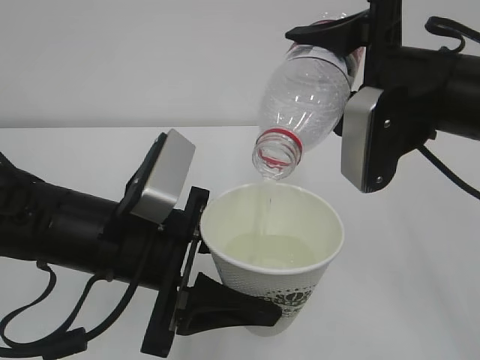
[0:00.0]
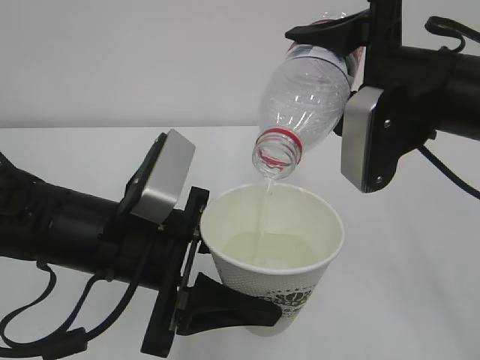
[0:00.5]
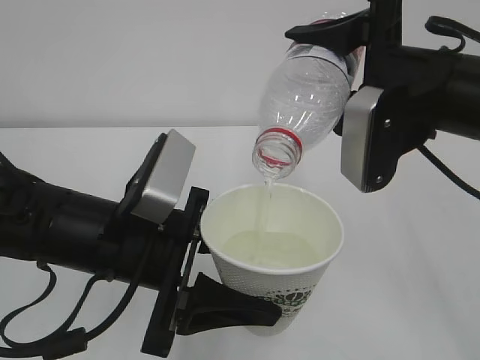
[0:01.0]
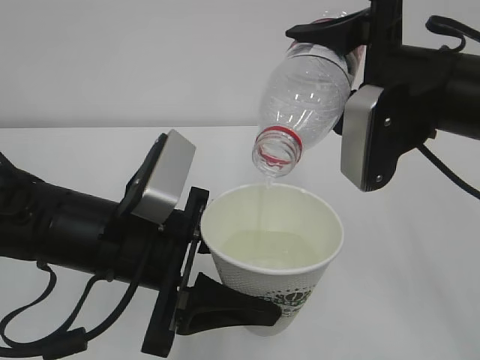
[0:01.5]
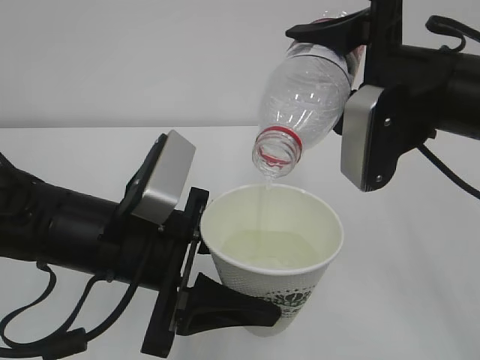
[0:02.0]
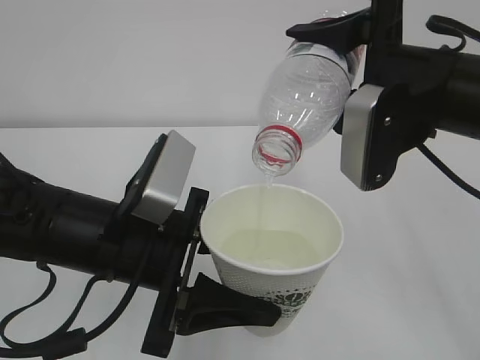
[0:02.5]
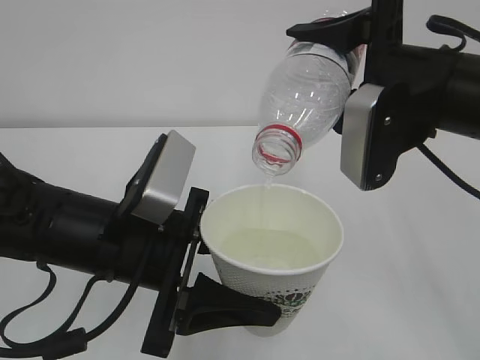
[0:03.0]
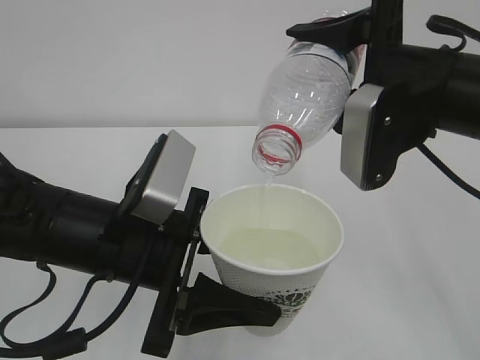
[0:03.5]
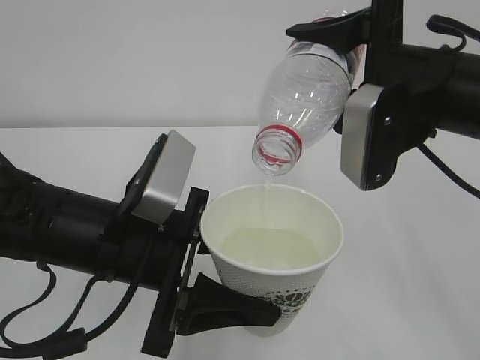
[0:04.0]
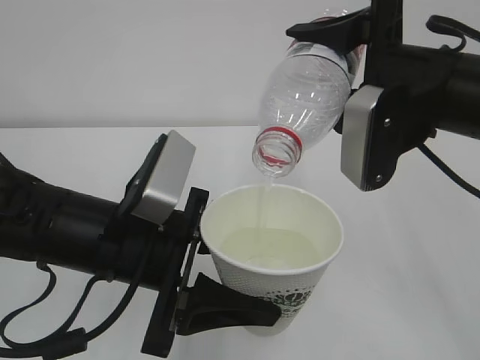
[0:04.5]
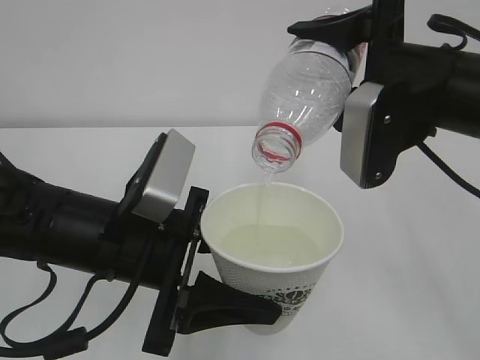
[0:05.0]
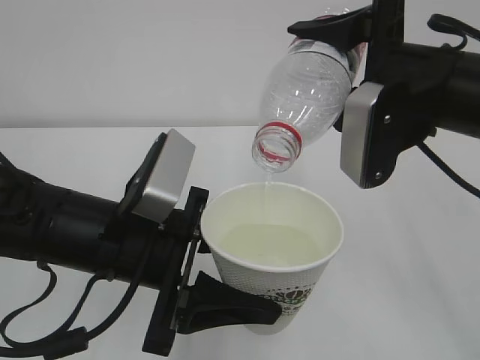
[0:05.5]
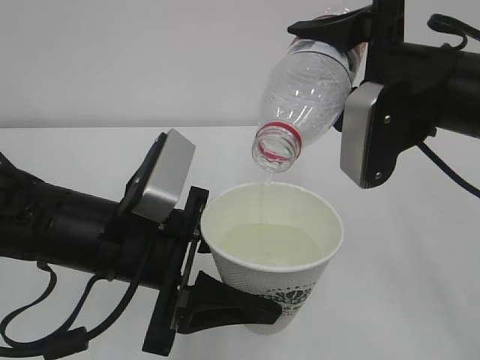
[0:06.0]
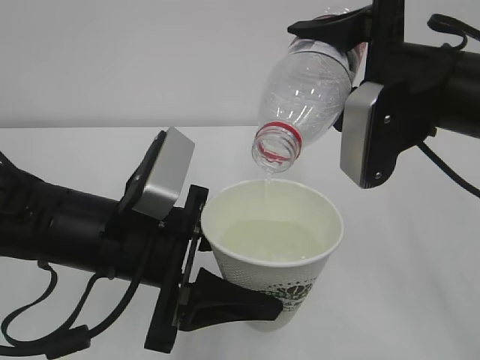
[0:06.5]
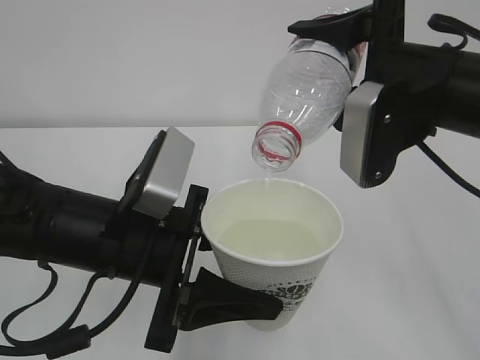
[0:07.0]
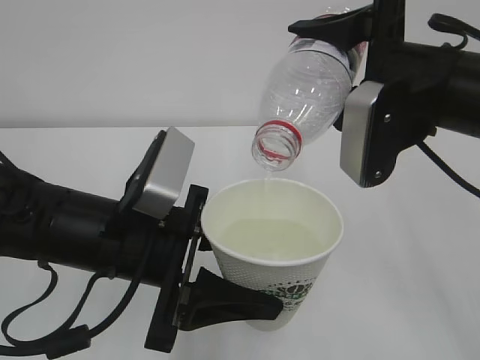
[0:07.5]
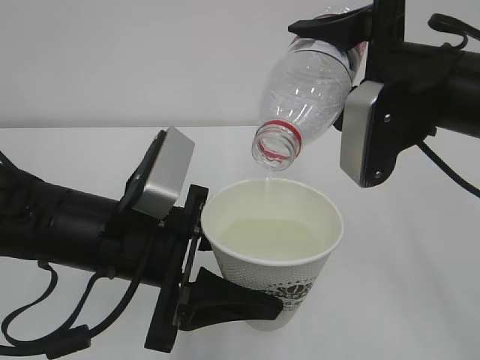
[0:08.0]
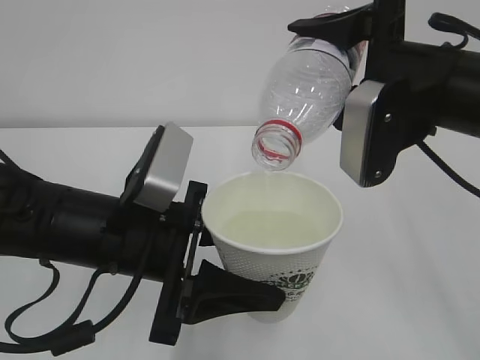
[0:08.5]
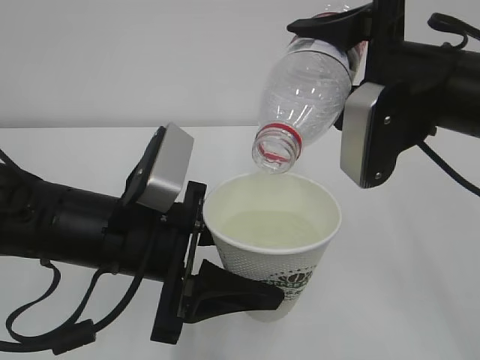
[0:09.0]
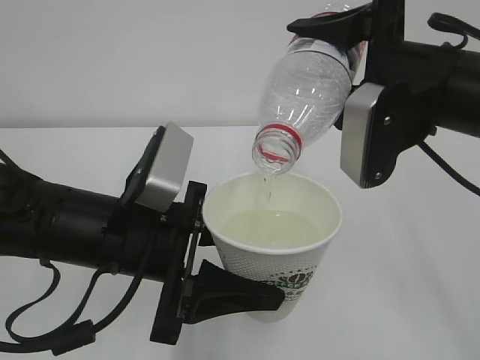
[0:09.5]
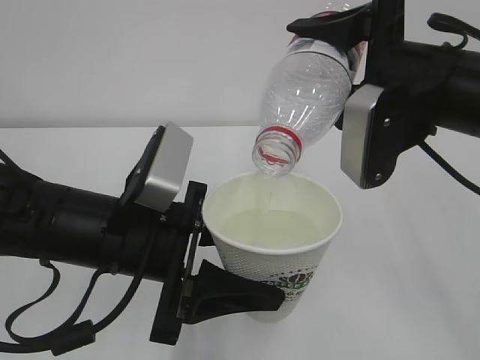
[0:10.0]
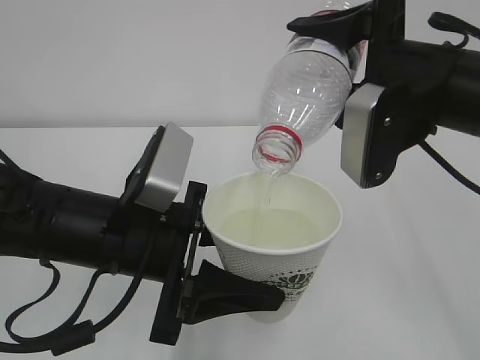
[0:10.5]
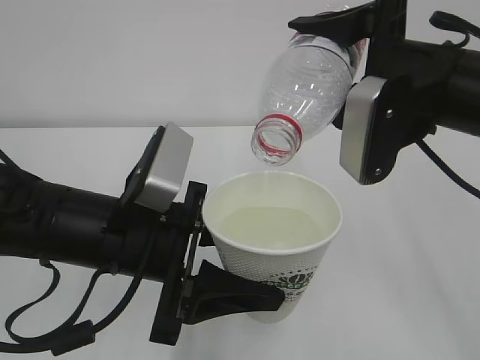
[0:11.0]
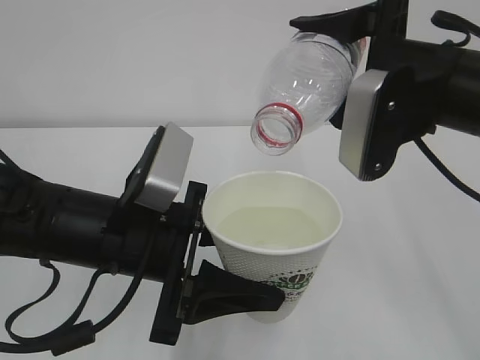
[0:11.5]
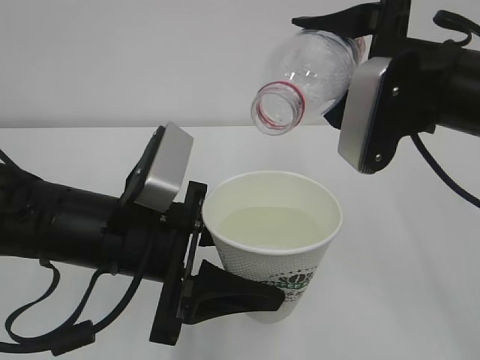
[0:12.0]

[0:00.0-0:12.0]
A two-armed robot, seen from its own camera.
0:00.0 to 0:10.0: Both grippers stay put.
0:10.0 to 0:12.0: The grippers make only small movements.

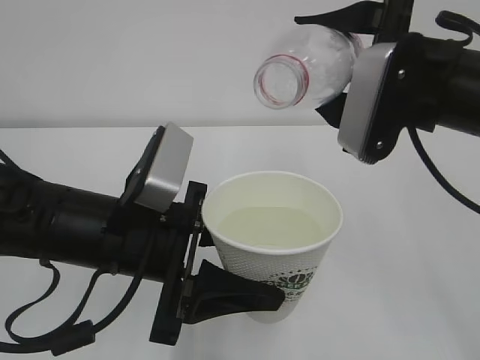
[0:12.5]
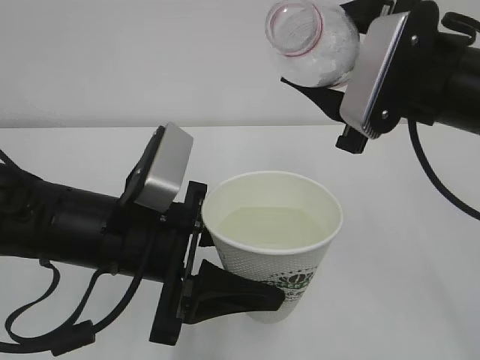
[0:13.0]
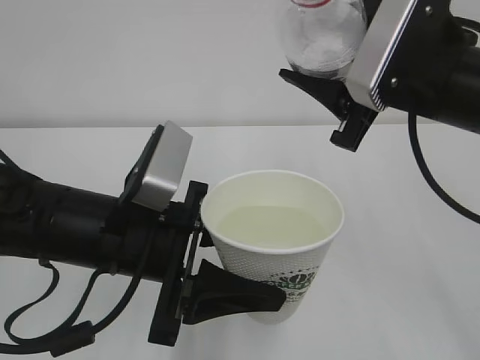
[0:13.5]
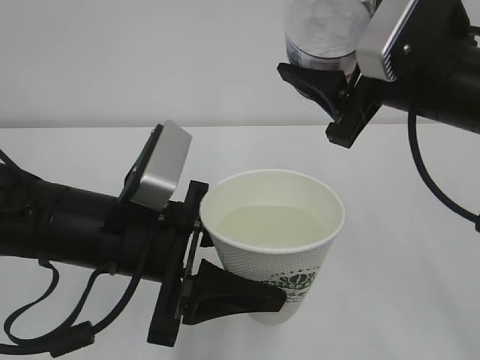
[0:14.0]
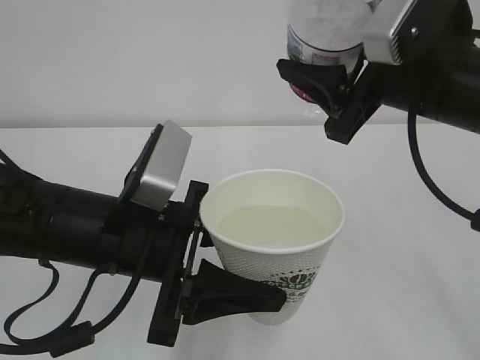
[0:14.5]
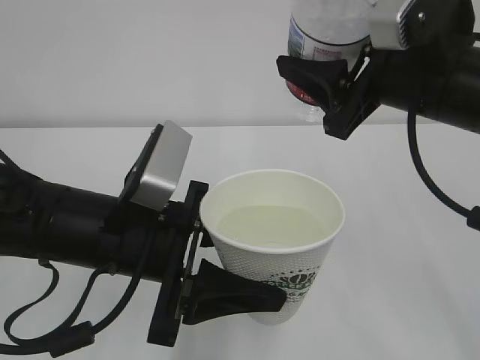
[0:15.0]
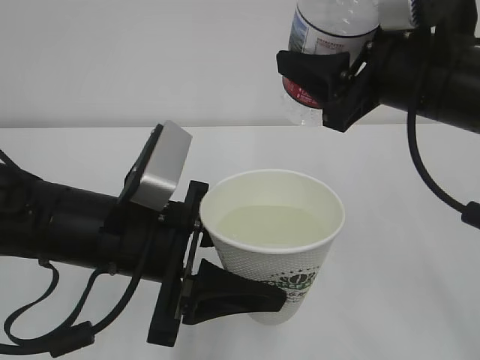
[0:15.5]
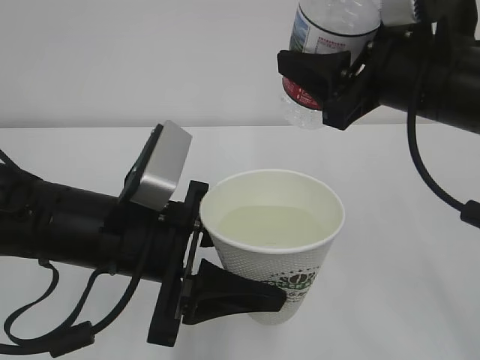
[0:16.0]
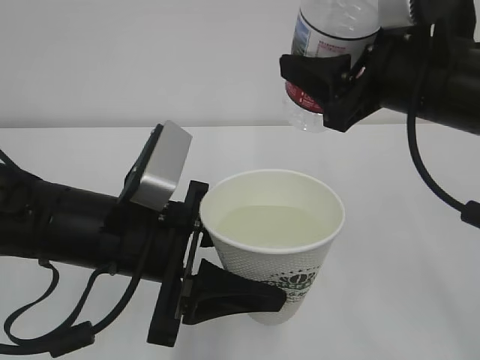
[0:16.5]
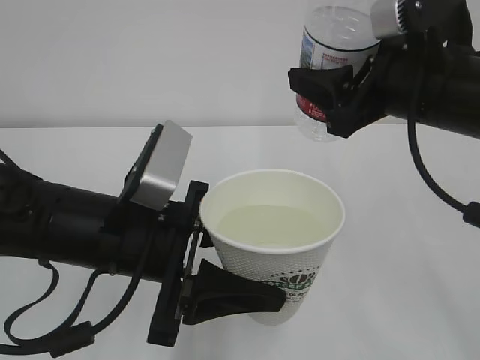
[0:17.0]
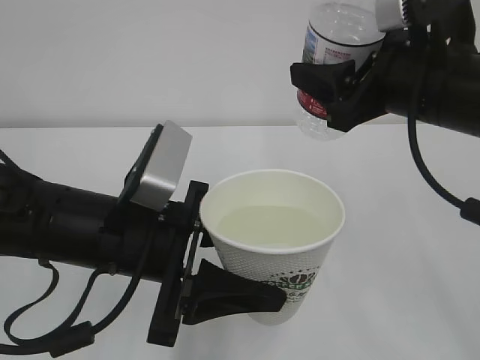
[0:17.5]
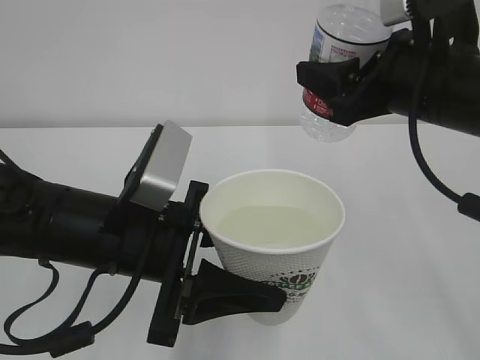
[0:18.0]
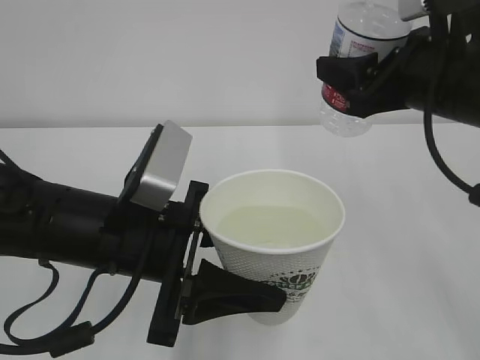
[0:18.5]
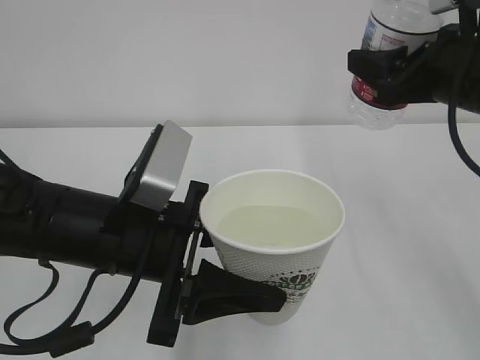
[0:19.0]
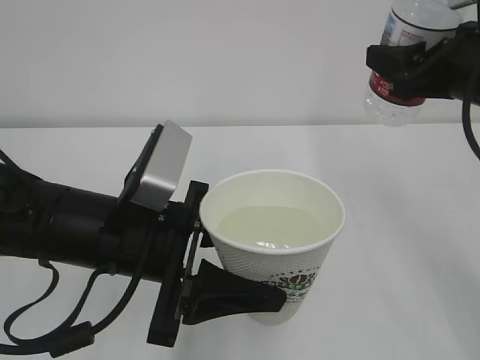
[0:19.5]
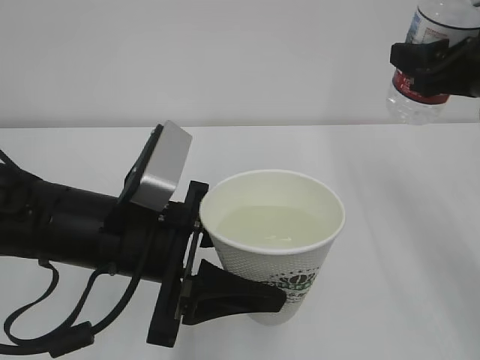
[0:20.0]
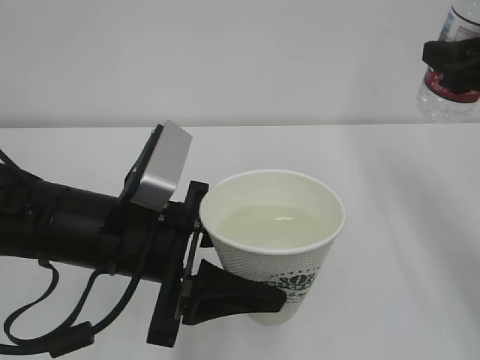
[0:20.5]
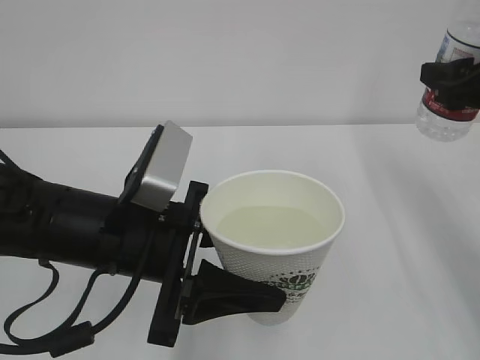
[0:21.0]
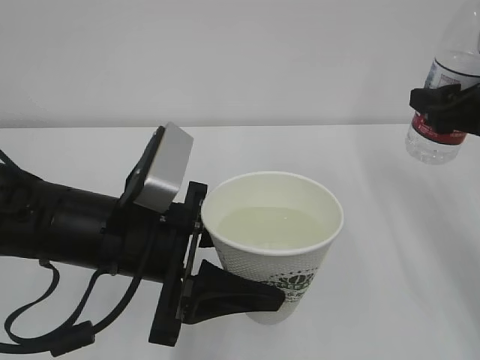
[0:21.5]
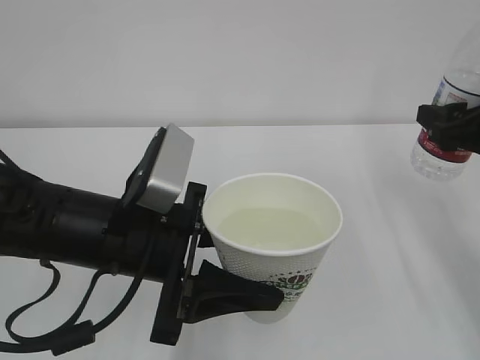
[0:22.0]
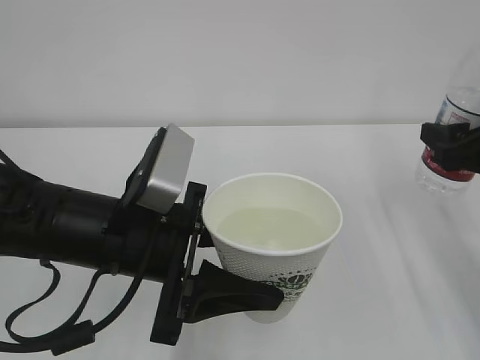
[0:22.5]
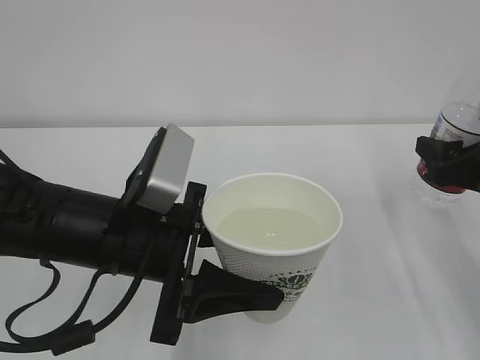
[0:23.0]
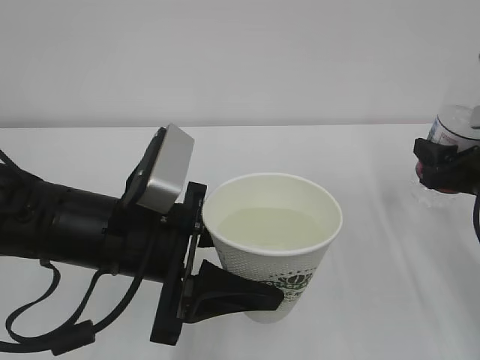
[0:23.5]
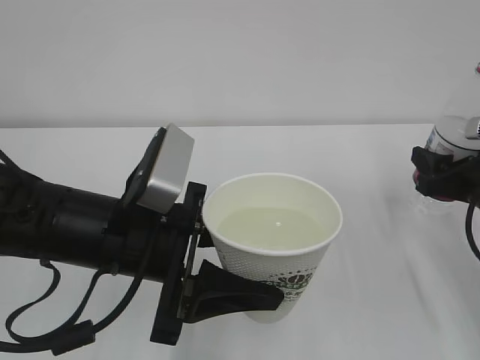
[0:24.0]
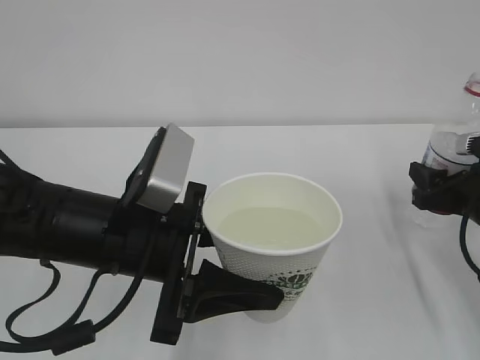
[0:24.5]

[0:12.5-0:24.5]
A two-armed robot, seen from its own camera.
0:14.5 to 0:16.5: The grippers make only small movements.
0:16.5 to 0:18.5: The grippers move only a little.
0:18.5 to 0:20.5: The right gripper moves to the right, some 10 cm.
0:20.5 to 0:22.5: The right gripper goes roughly 10 cm downward.
0:22.5 to 0:24.5: The right gripper heads downward, covering about 10 cm.

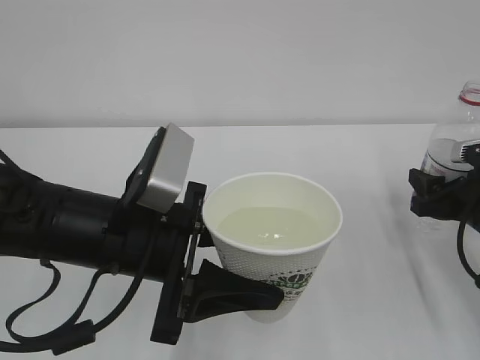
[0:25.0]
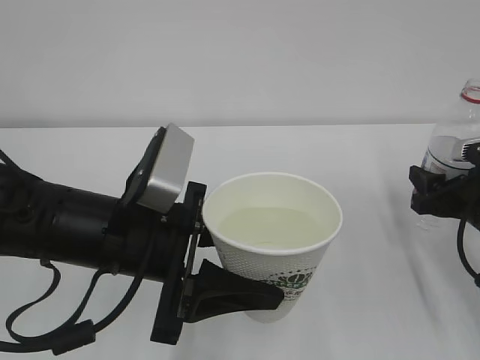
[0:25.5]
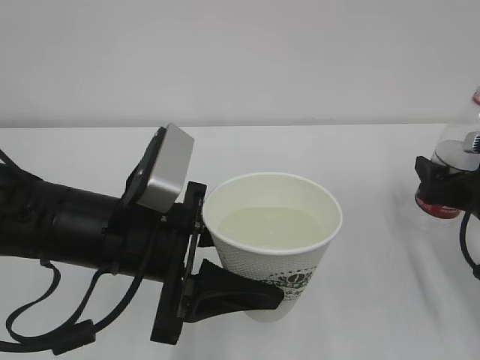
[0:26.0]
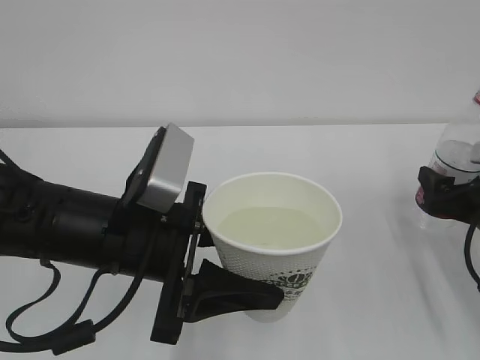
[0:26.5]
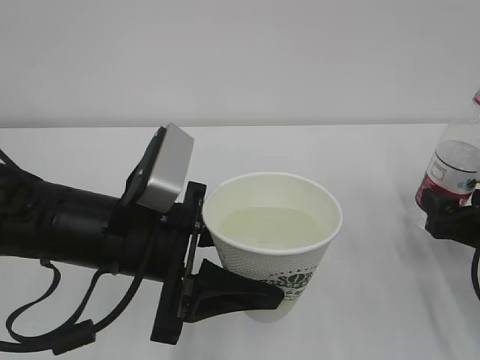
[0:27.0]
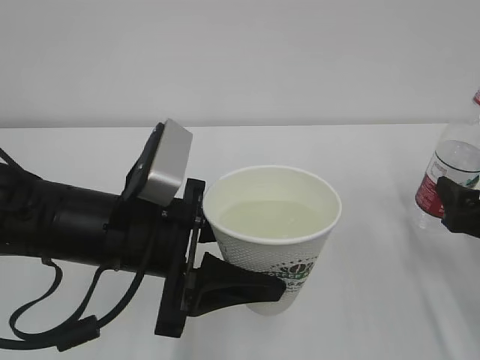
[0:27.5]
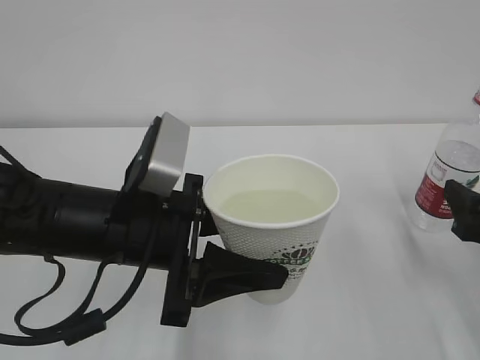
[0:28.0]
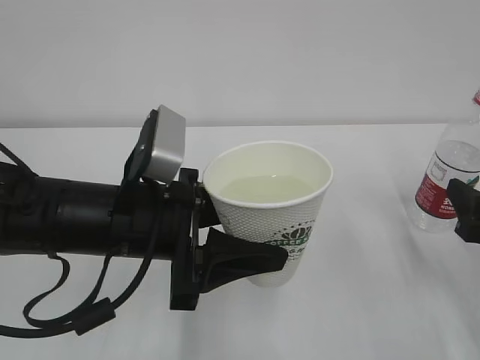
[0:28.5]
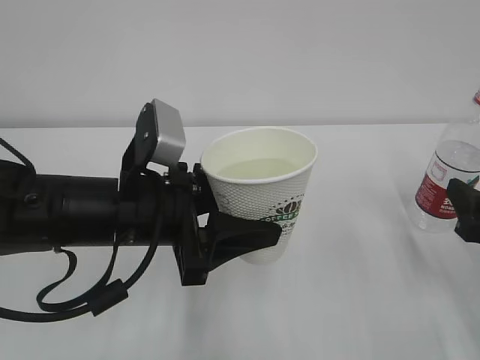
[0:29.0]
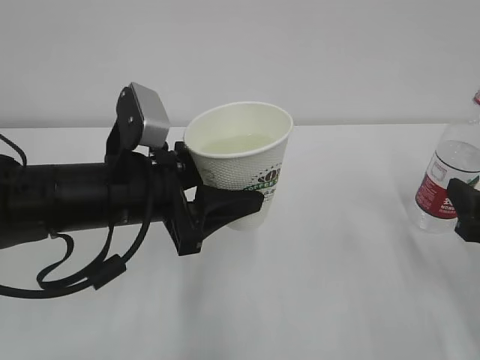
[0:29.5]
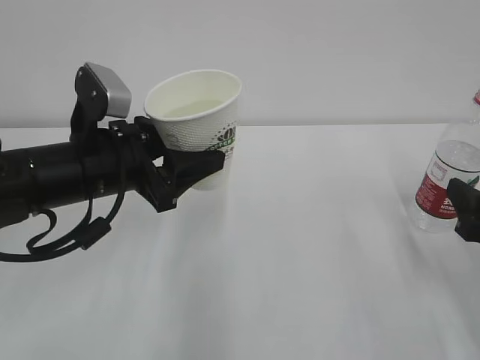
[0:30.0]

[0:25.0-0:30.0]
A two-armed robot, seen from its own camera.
0:25.0 to 0:27.5: The right gripper goes approximately 5 cm backward, and opens its fingers.
0:27.5 to 0:30.0: The left gripper moves forward, approximately 5 cm.
